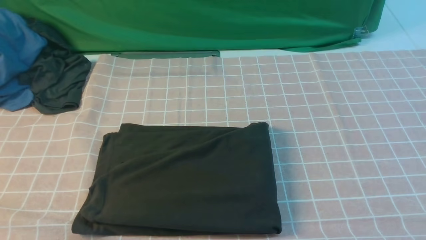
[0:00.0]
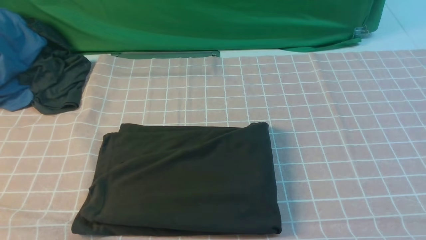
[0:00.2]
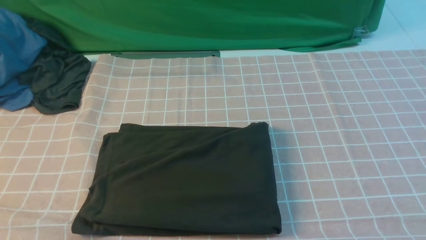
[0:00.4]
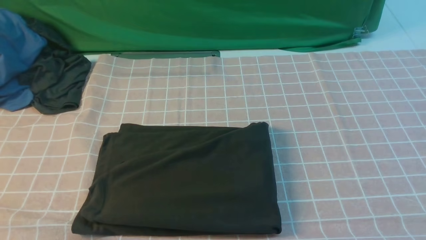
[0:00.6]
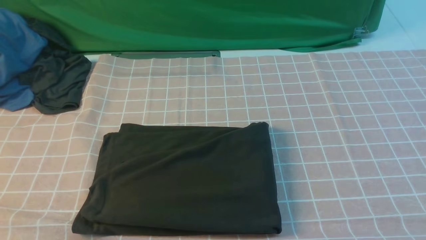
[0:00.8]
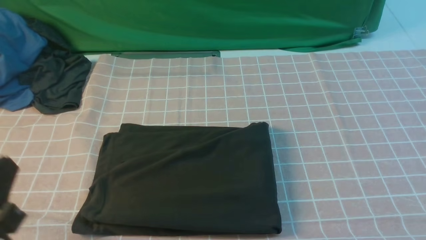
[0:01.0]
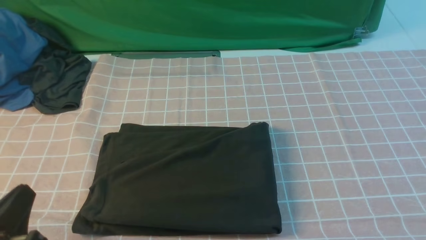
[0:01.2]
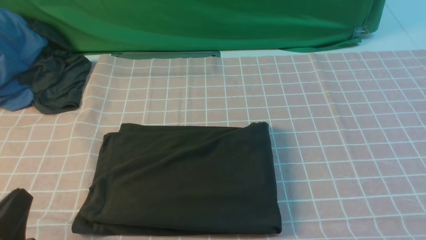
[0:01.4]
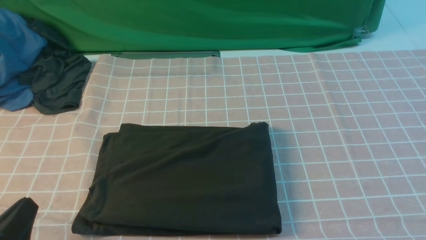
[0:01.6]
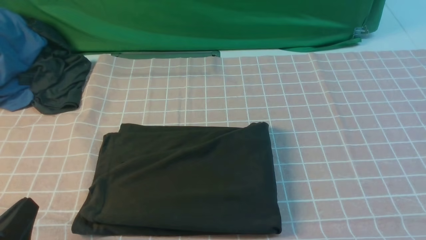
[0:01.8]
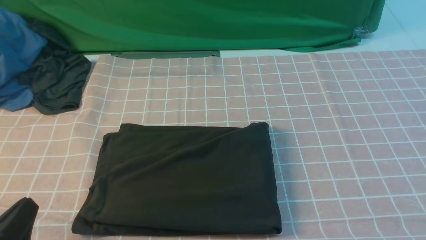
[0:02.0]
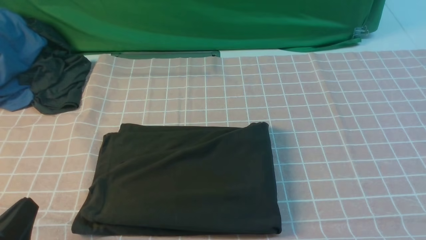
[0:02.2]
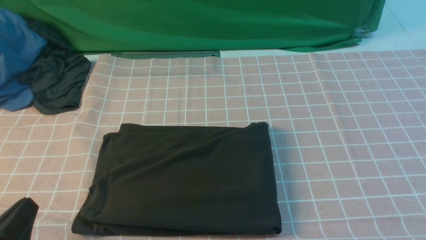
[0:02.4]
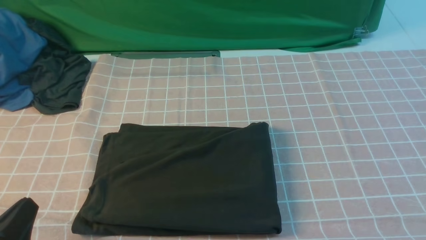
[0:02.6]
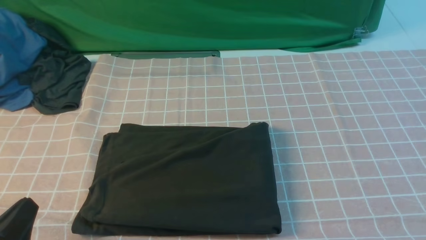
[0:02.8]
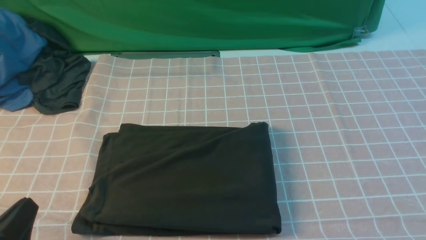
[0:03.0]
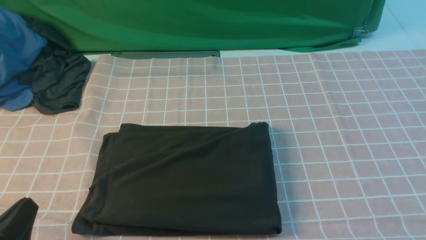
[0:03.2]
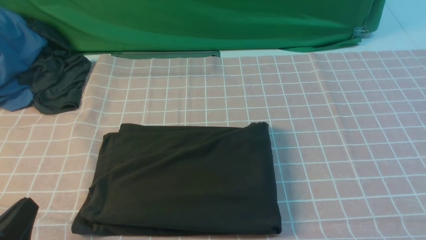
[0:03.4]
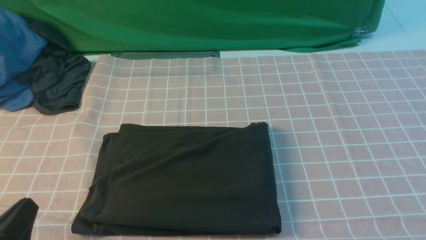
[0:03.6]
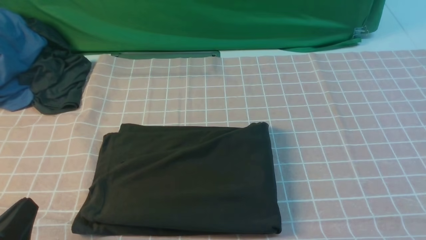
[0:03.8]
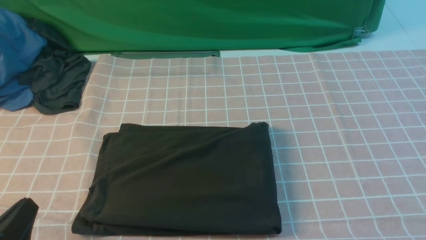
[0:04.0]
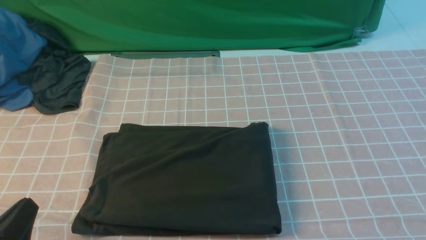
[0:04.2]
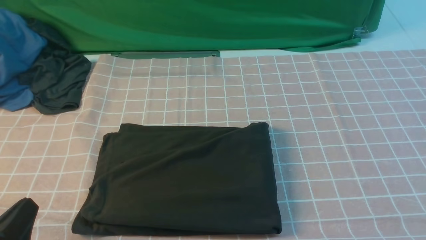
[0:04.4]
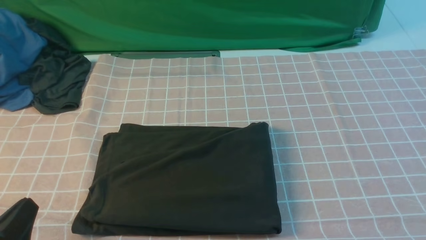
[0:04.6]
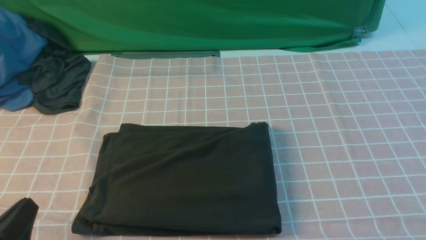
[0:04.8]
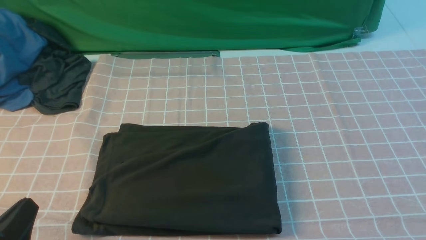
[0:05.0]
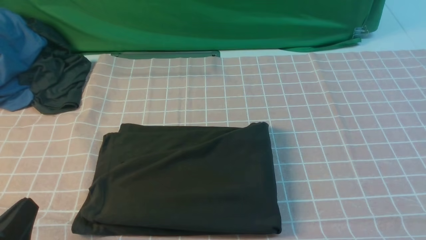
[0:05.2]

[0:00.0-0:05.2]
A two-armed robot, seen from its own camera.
0:00.0 to 0:01.8: The left gripper is displaced downward by about 15 cm.
